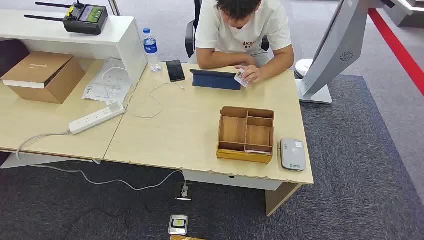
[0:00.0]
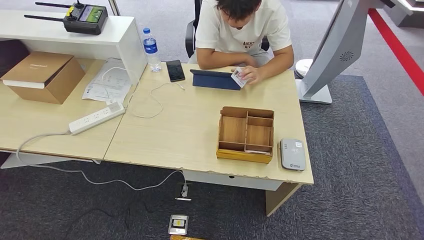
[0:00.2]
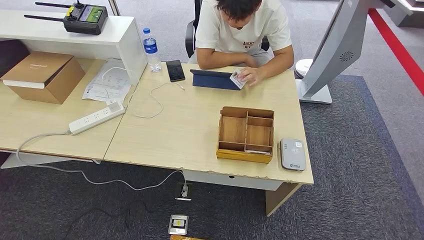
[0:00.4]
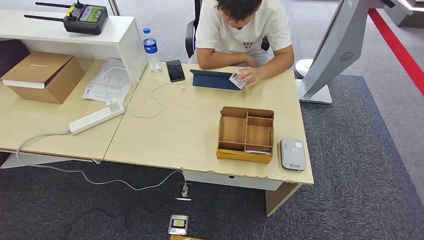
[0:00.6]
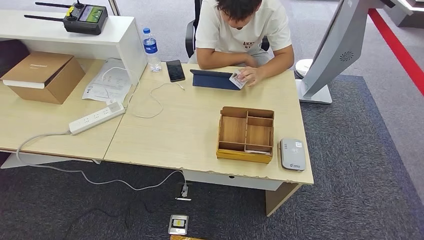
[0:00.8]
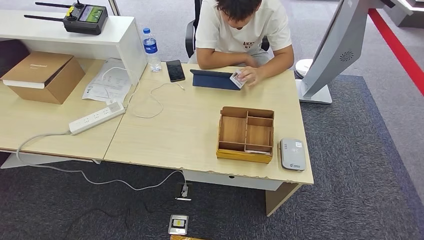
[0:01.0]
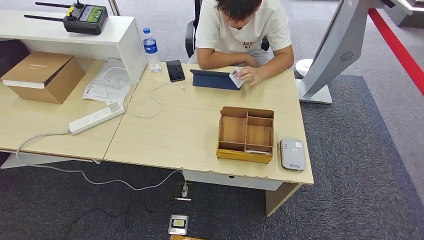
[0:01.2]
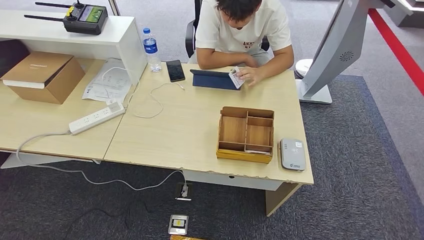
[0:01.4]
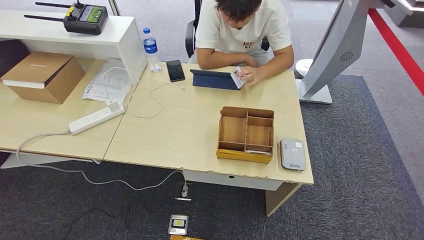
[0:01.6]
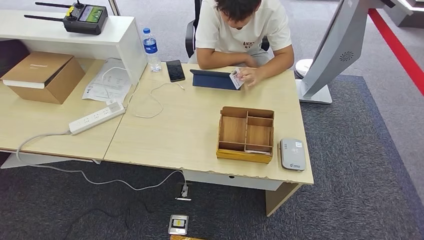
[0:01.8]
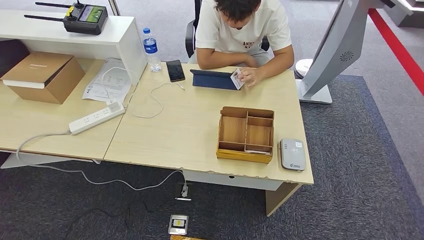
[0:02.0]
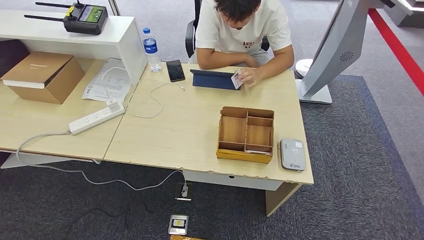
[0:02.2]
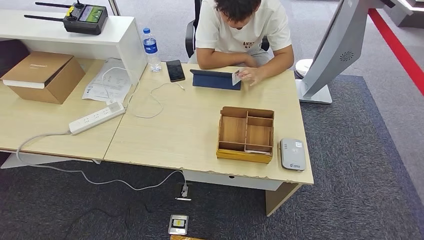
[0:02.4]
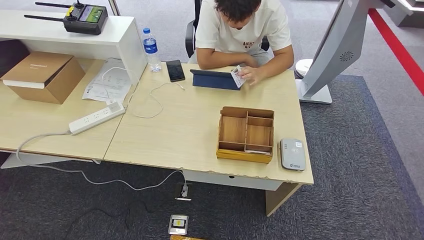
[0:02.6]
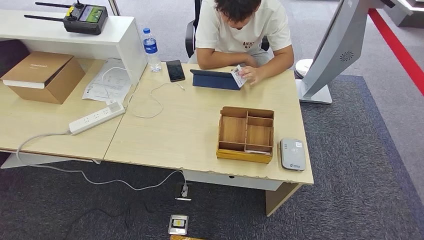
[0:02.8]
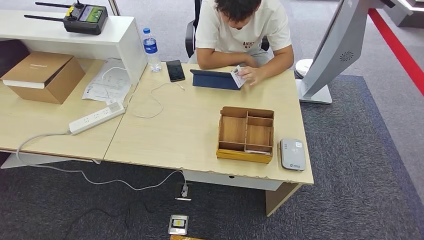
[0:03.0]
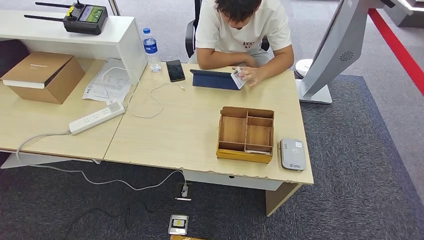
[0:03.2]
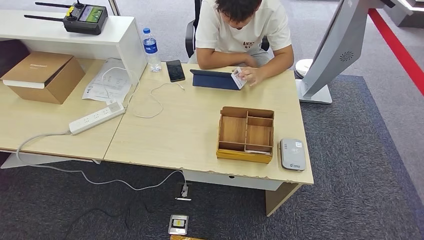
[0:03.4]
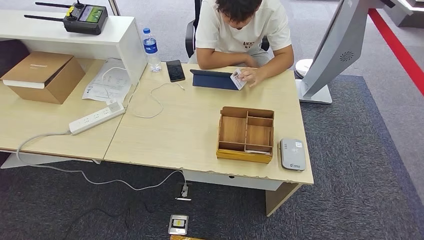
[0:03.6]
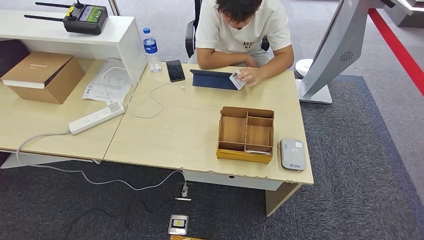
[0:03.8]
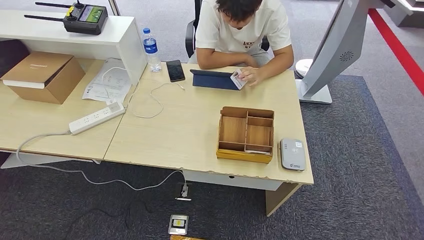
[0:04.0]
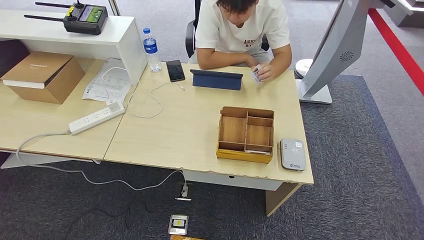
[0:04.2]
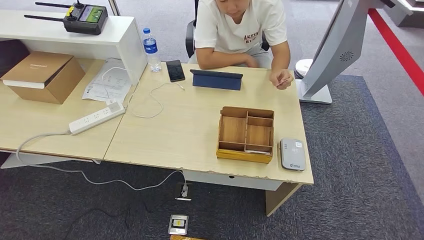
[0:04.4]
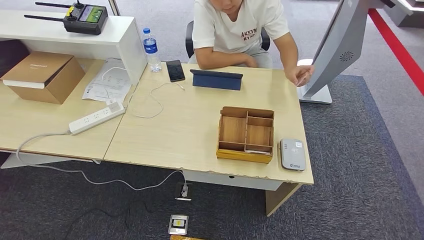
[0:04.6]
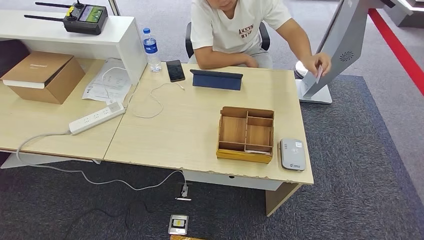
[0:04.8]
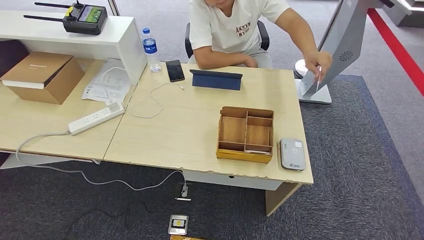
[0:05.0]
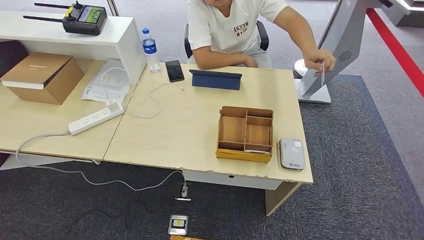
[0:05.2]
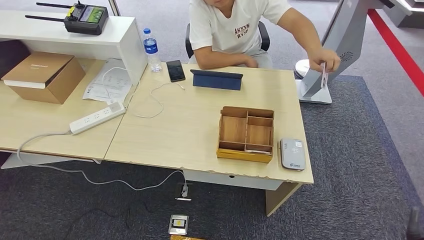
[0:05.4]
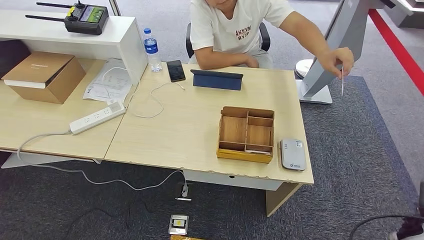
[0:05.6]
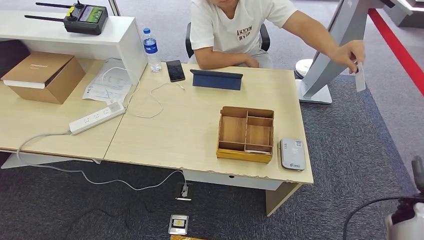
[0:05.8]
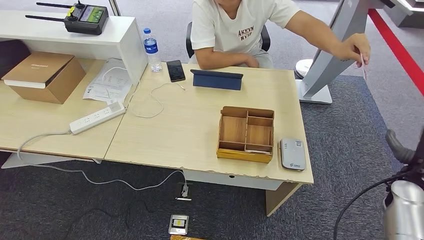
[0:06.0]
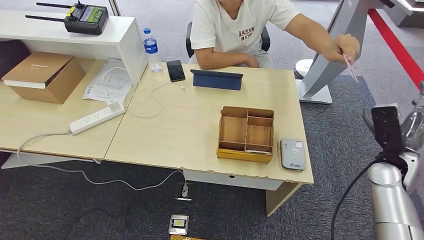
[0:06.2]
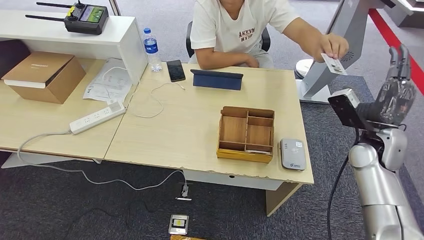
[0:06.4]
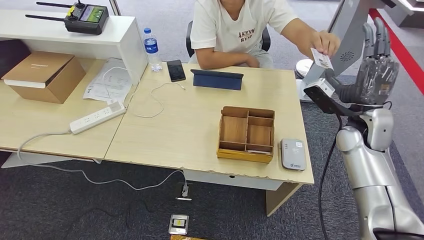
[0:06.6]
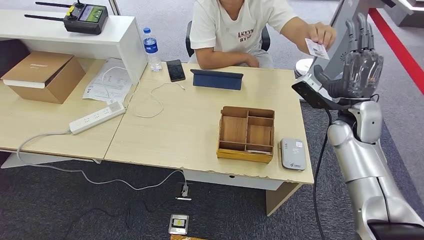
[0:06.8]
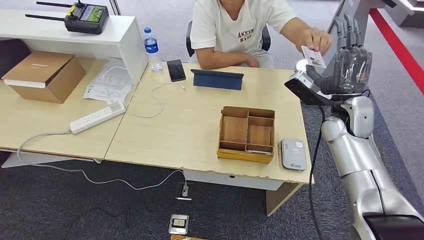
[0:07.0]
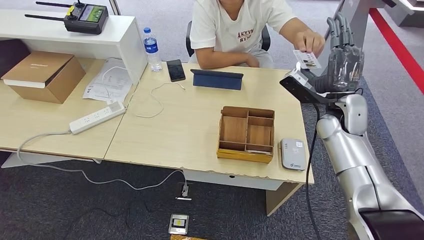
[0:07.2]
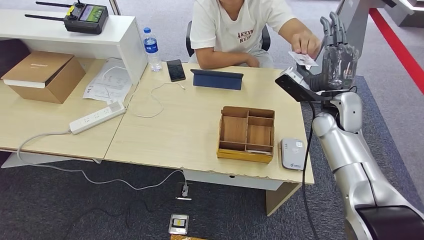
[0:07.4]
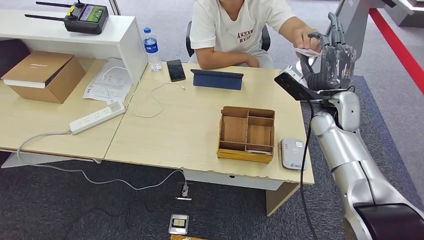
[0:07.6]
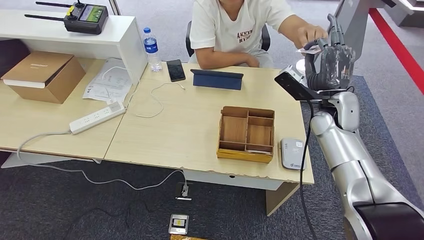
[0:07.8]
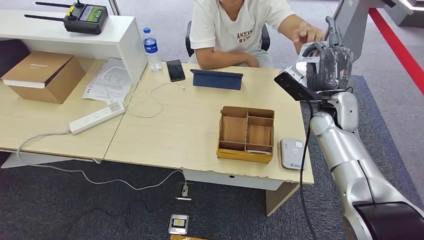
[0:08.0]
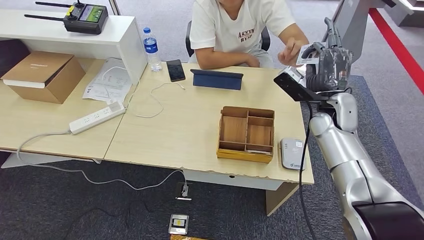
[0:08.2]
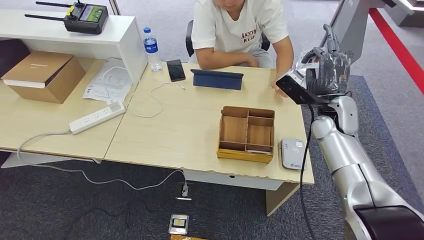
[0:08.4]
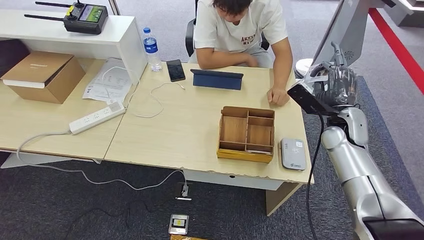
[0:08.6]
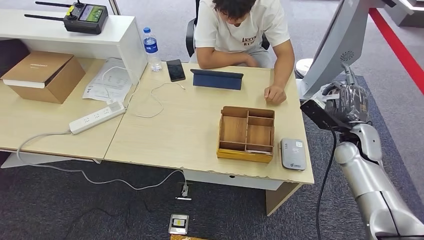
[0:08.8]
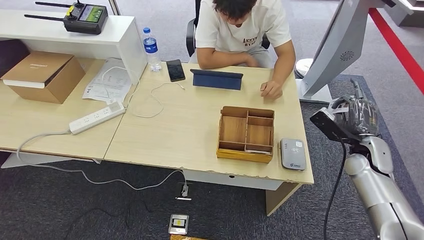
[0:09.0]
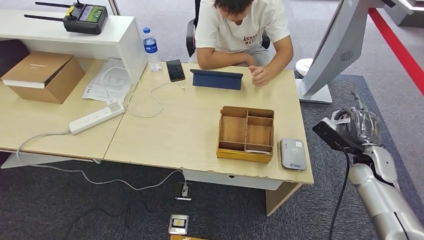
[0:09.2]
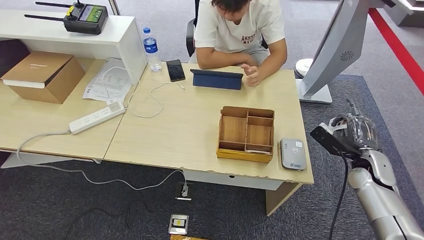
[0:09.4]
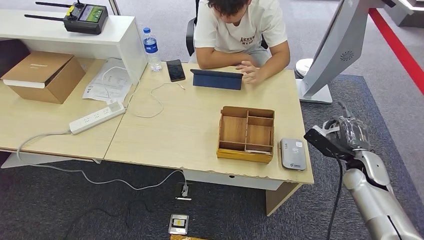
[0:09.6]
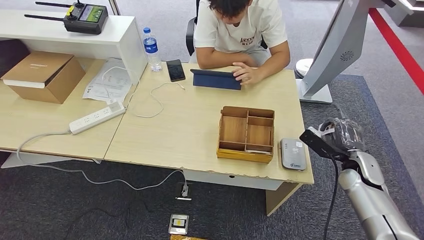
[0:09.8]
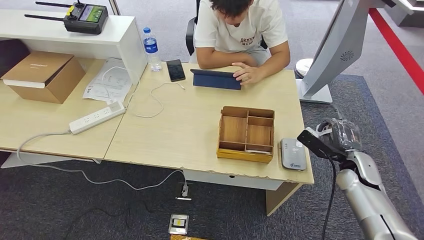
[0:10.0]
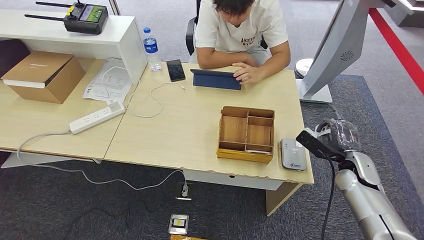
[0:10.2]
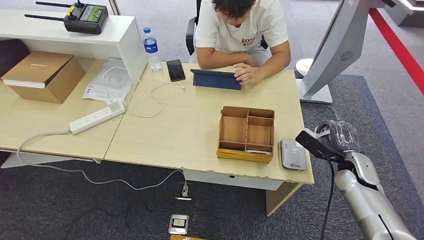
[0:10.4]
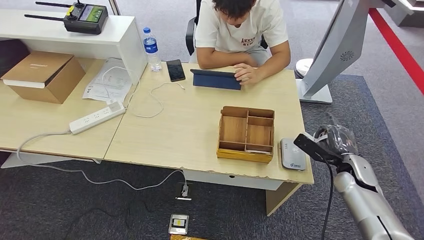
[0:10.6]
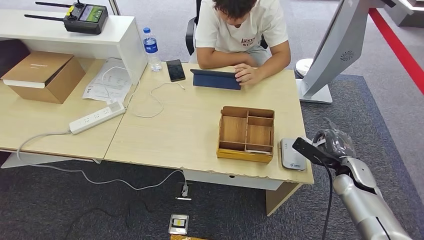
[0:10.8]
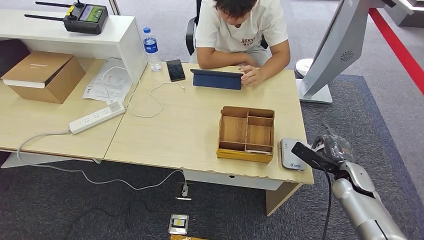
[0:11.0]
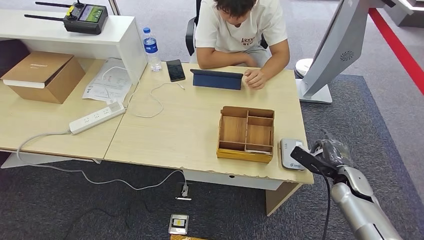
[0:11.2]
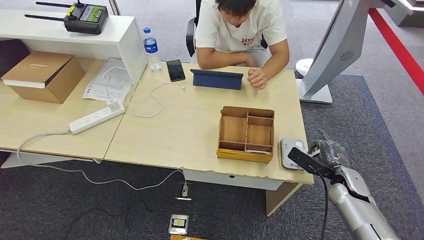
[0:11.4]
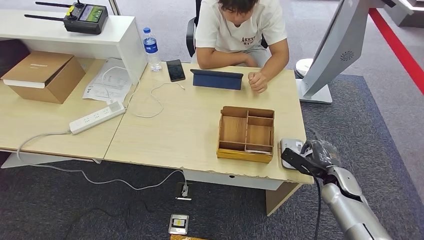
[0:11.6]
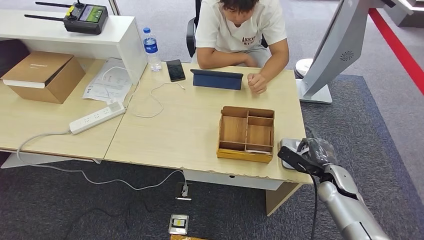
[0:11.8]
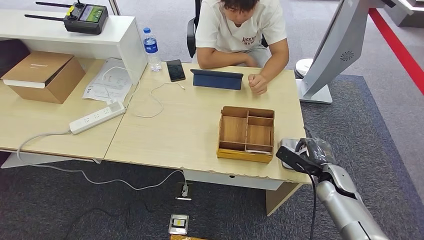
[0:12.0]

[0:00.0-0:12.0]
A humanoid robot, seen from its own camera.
Step, 0.0 to 7.8 s: Take the ID card from the person's hand.
1.6 to 4.4 s: The two hands keep their place.
4.4 to 6.0 s: The right hand heads forward and upward, covering about 35 cm.
6.0 to 7.6 s: The right hand heads to the left, forward and upward, covering some 25 cm.
7.6 to 9.0 s: The right hand goes about 15 cm to the right, downward and backward.
9.0 to 10.4 s: The right hand shifts by about 5 cm.
10.4 to 12.0 s: The right hand changes place by roughly 5 cm.

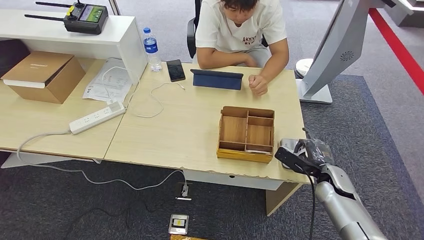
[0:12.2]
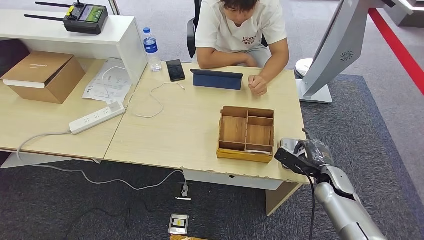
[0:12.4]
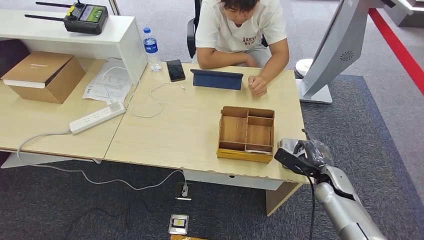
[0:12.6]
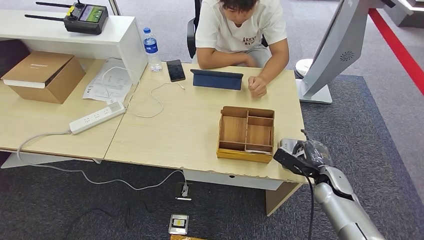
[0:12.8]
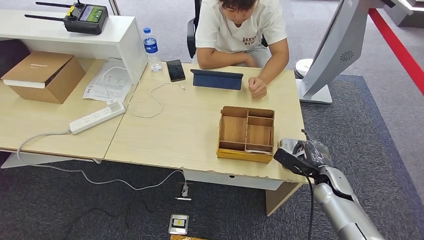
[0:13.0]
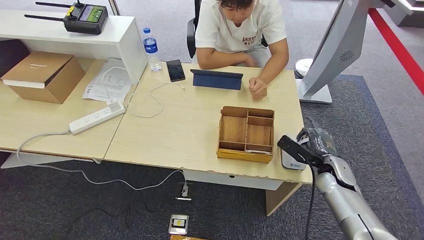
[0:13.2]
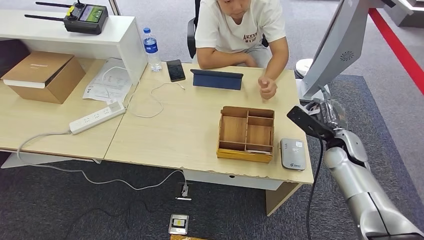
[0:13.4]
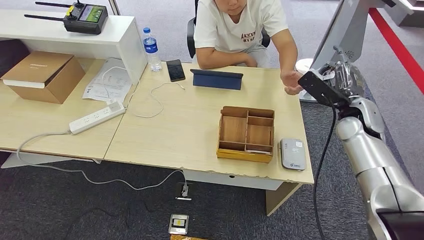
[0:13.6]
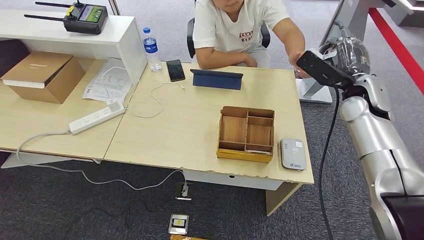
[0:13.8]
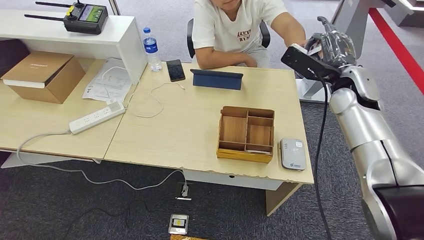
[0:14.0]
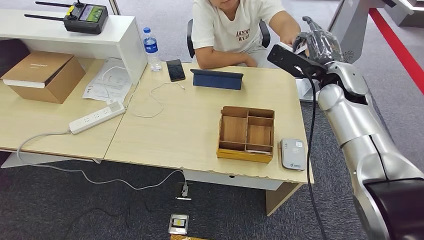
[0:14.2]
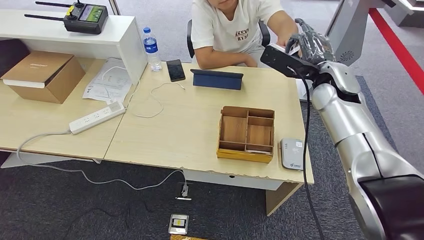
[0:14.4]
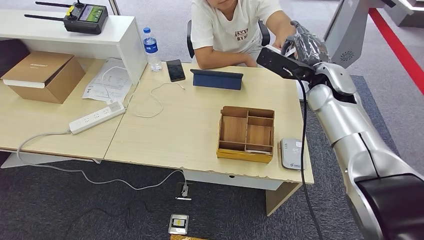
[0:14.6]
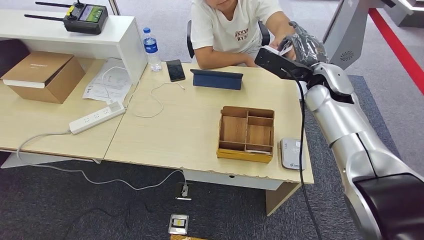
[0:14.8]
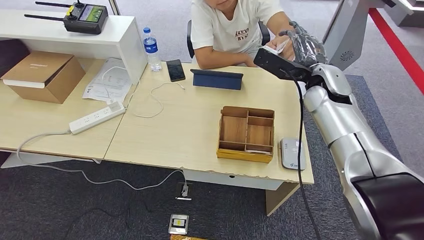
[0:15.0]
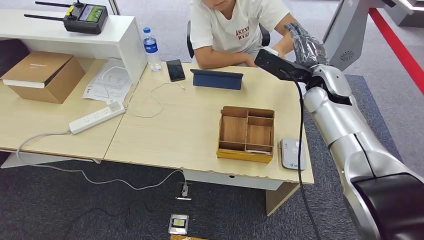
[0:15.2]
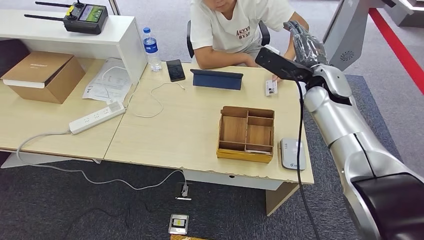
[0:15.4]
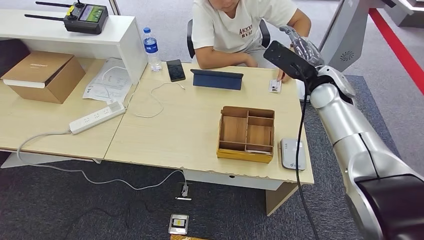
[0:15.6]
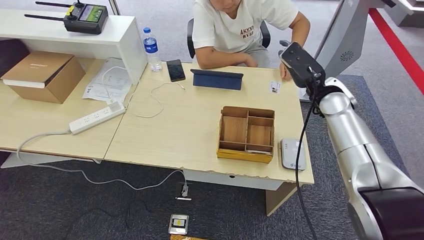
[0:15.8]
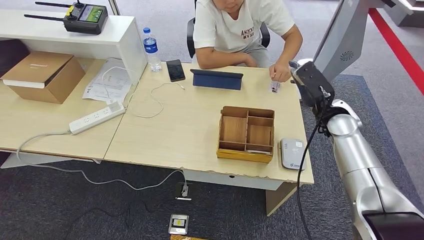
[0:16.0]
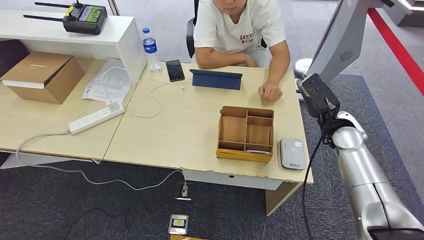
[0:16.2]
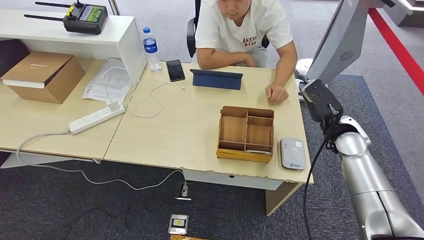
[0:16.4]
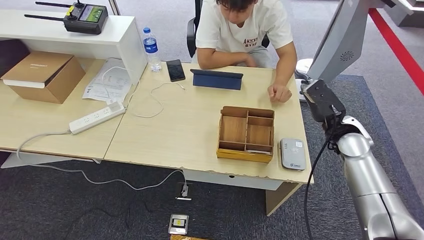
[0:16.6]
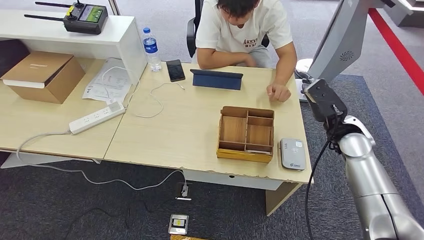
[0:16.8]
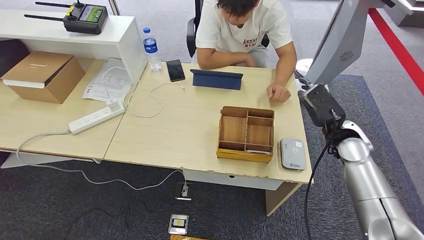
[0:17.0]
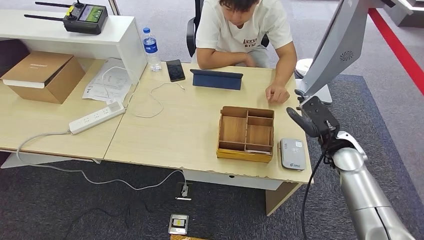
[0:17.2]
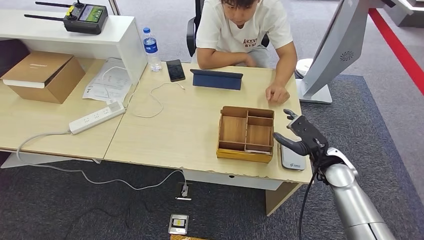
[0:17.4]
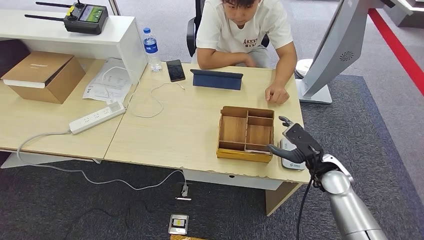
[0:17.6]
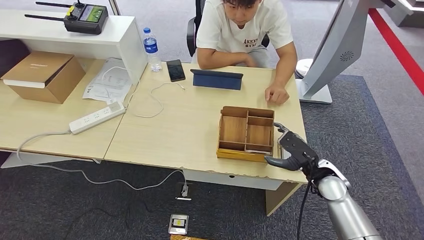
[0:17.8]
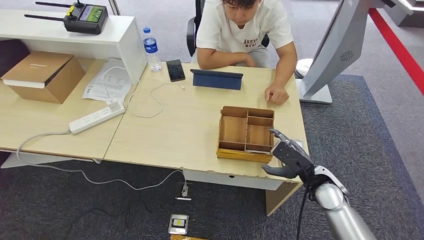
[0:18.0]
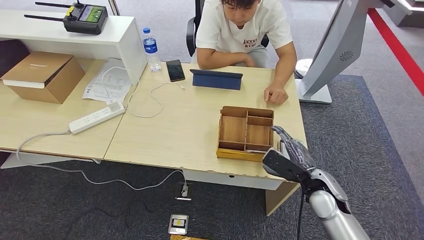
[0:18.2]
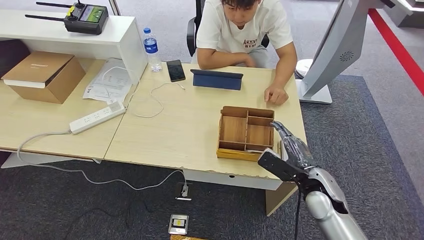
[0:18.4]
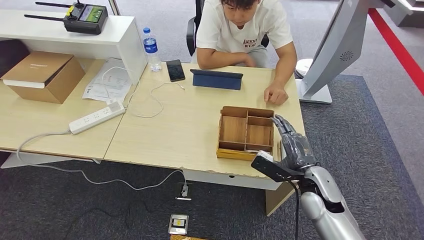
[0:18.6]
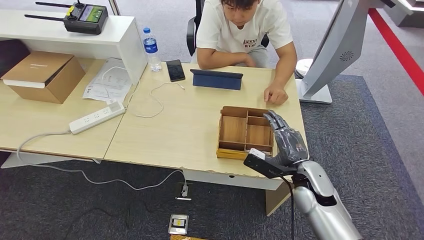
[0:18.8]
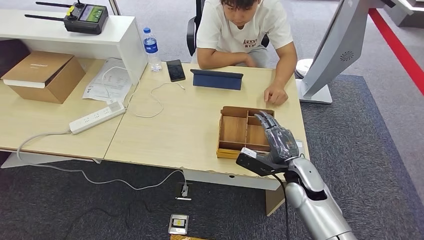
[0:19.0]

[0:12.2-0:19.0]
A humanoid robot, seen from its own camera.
Step, 13.2 to 15.8 s: Hand the ID card to the person.
12.2 to 13.6 s: The right hand shifts about 20 cm upward and forward.
13.6 to 15.0 s: The right hand travels to the left and upward by about 15 cm.
15.0 to 16.2 s: The right hand moves downward, to the right and backward, about 15 cm.
16.2 to 17.6 s: The right hand goes roughly 10 cm downward and backward.
17.6 to 19.0 s: The right hand shifts about 10 cm to the left.
